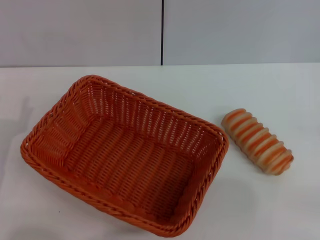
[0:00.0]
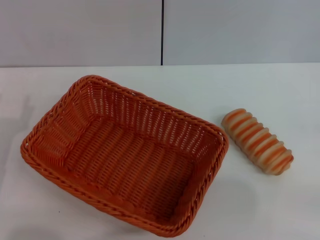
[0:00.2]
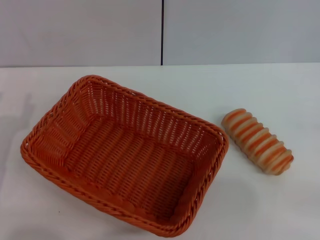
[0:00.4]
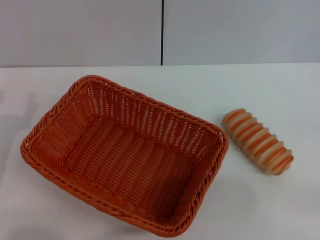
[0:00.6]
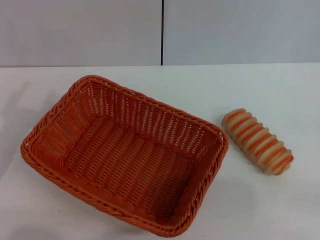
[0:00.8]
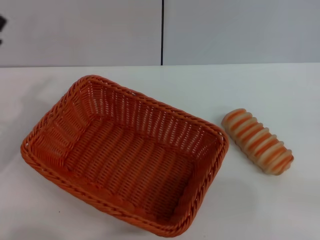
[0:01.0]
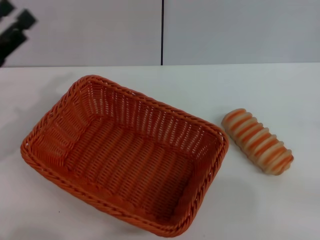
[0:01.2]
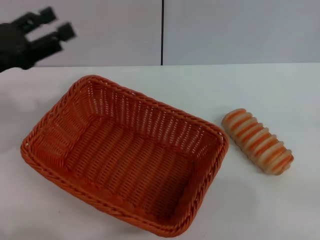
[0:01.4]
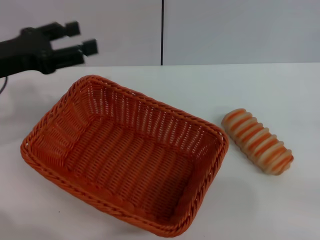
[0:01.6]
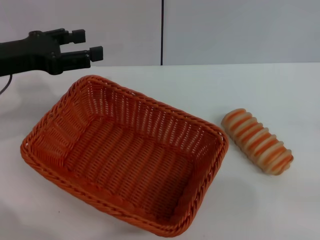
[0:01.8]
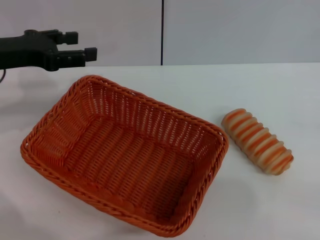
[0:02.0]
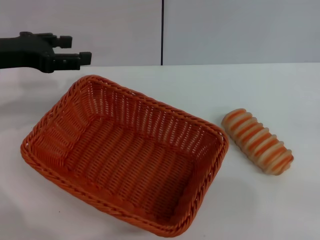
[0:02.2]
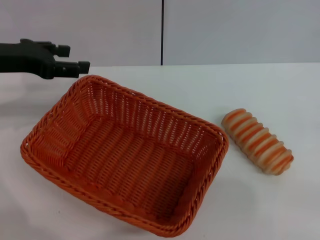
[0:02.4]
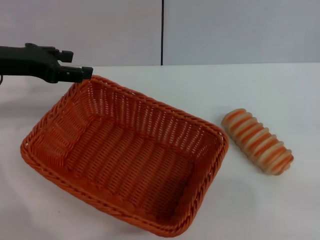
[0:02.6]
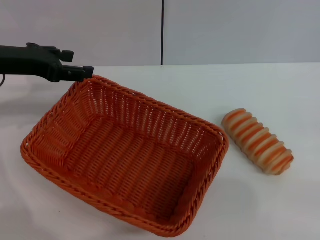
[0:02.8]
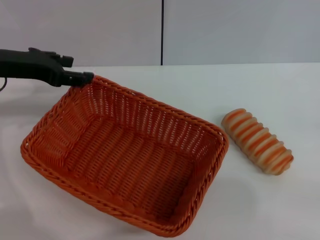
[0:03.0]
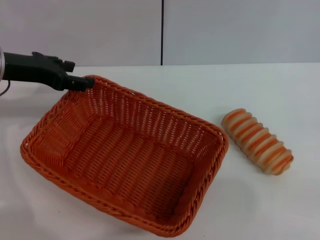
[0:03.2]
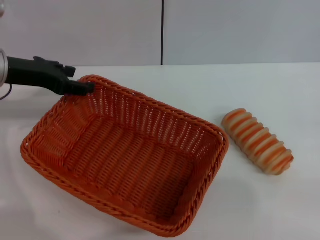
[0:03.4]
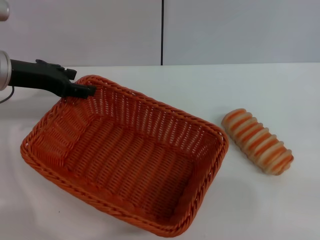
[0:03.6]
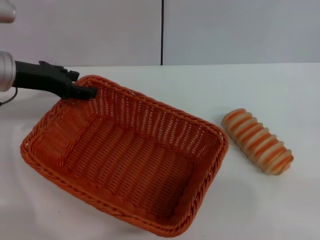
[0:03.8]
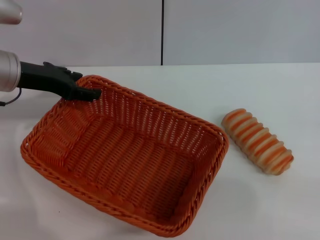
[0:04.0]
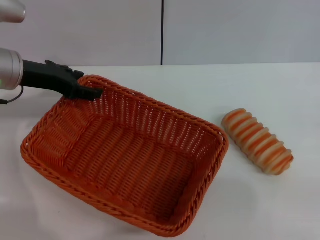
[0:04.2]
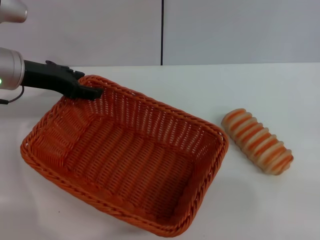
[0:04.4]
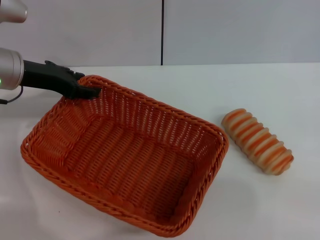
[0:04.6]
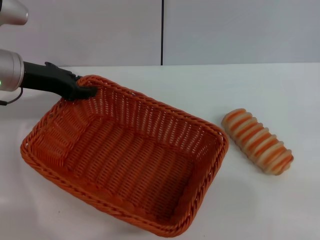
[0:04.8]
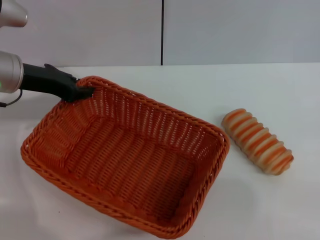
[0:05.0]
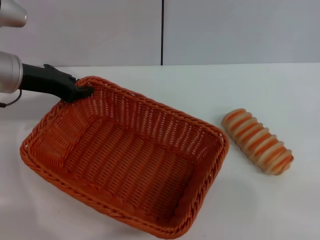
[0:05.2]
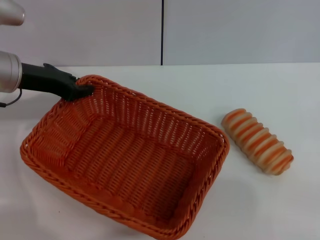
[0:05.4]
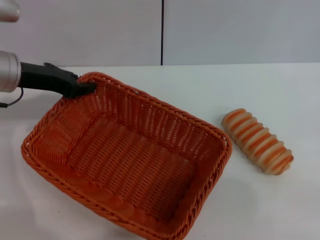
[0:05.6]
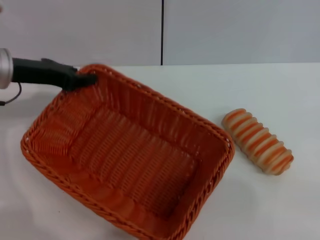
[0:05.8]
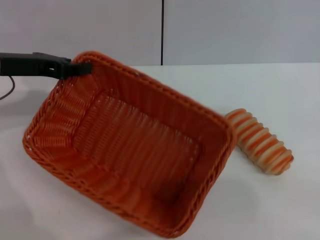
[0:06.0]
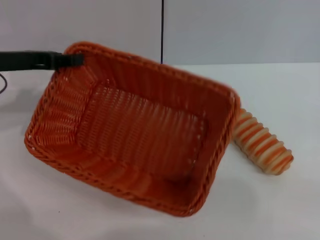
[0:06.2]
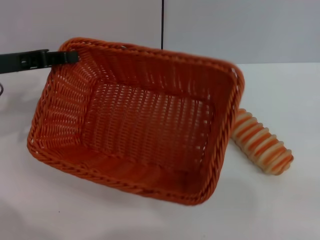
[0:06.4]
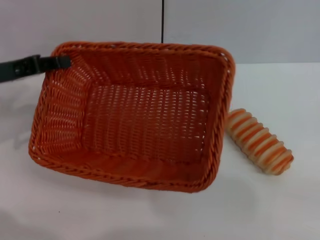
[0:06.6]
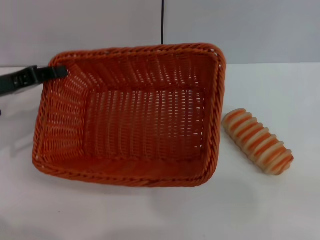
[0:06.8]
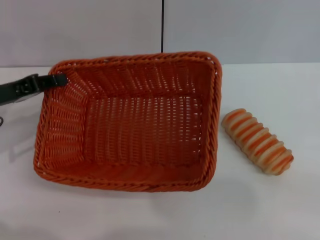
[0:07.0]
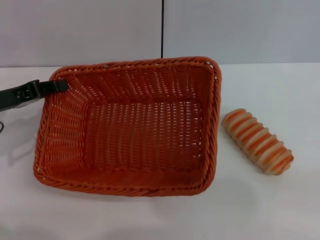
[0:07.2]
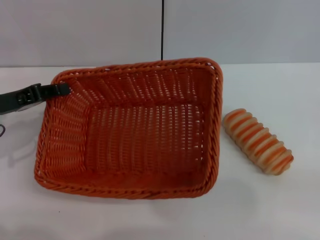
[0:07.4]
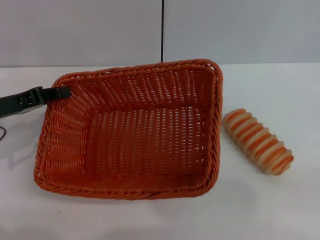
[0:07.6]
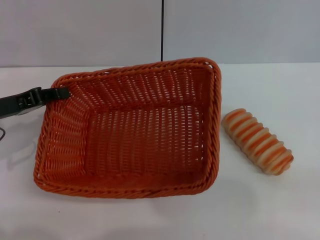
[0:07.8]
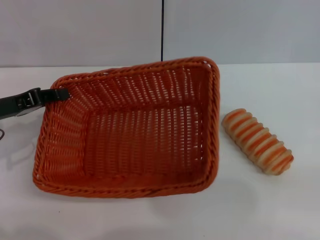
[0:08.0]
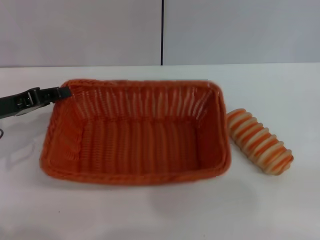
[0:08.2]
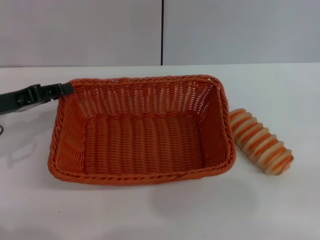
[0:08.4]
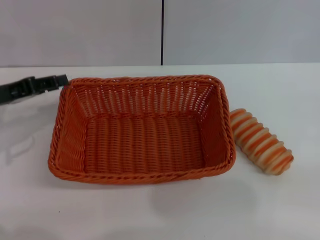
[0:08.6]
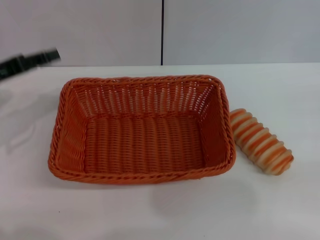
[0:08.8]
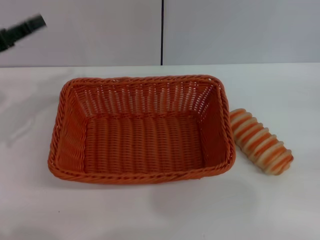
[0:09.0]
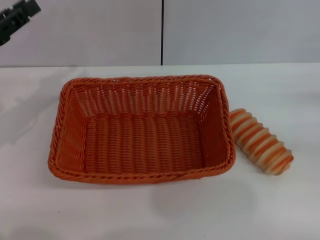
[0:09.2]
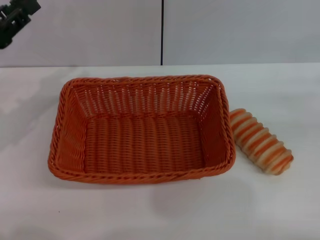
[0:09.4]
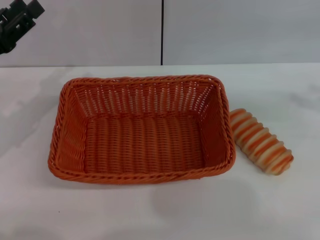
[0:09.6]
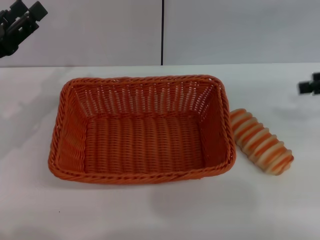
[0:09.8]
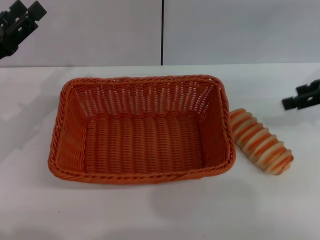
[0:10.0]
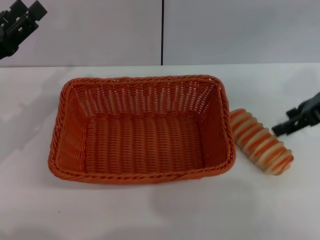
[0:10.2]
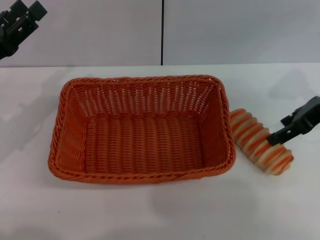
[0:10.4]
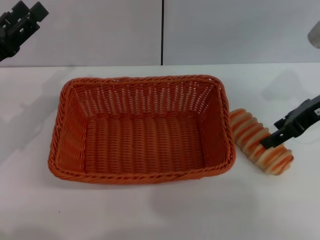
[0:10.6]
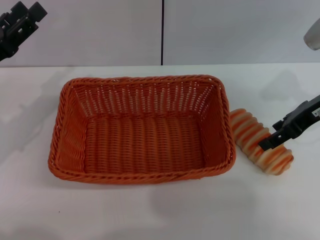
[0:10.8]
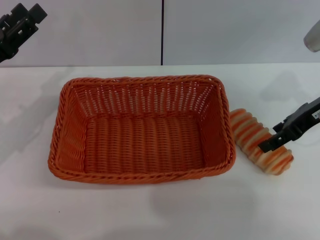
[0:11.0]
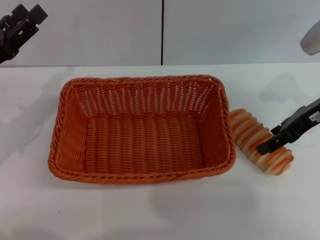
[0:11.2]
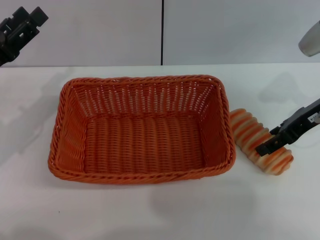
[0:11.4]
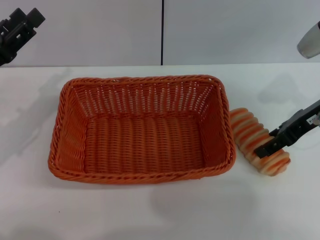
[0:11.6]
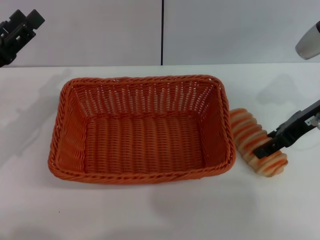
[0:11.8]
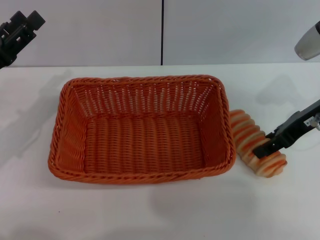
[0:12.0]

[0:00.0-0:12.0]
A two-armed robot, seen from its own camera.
Step, 0.0 to 6.2 s: Pick up the light basket with the left gripper.
Step, 6.4 to 8.8 s: Place the light basket in the center of view with the left gripper.
0.0 to 1.6 s: The left gripper is displaced forward and upward by roughly 15 cm.
3.0 to 4.4 s: The grippers stay close to where they were, moving slightly.
4.4 to 6.0 s: The left gripper closes.
6.0 to 7.6 s: The left gripper is displaced downward and backward by some 10 cm.
7.6 to 9.0 s: The left gripper shifts by approximately 5 cm, and opens its fingers.
9.0 to 10.4 s: The left gripper opens up, while the right gripper is displaced to the left, forward and upward by roughly 20 cm.
10.4 to 12.0 s: There are only small adjustments of the grippers.

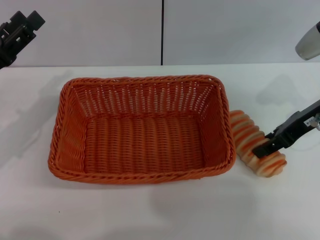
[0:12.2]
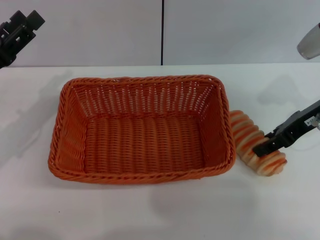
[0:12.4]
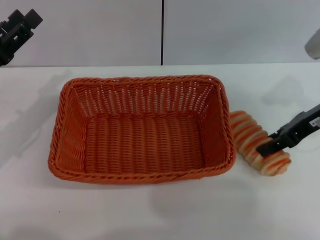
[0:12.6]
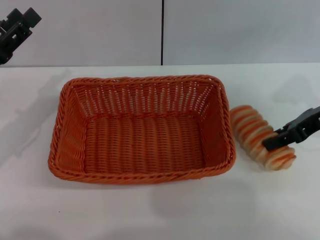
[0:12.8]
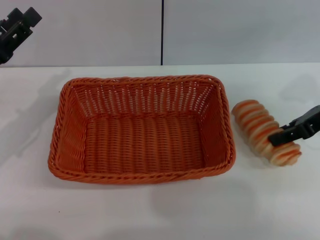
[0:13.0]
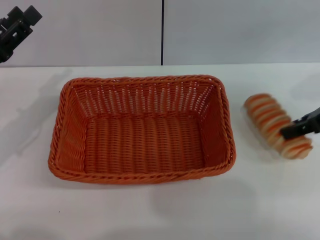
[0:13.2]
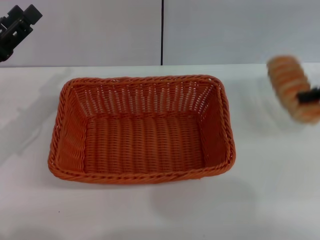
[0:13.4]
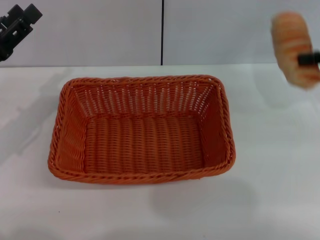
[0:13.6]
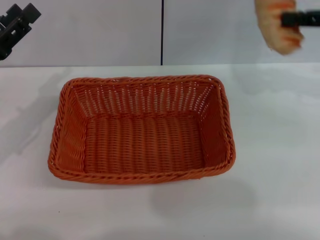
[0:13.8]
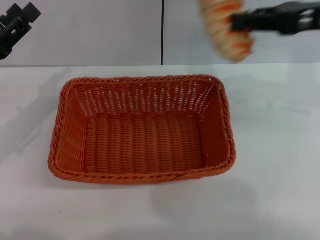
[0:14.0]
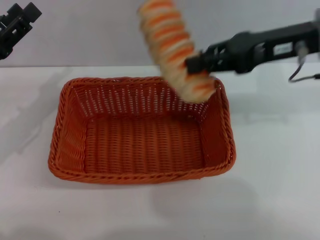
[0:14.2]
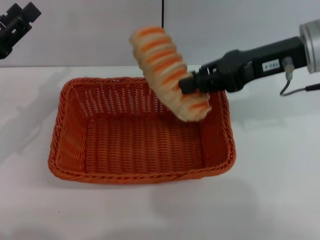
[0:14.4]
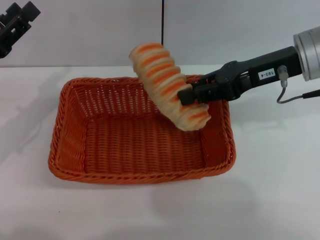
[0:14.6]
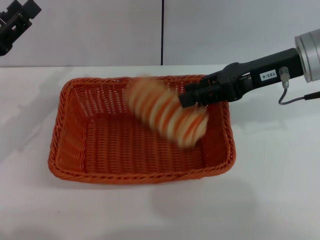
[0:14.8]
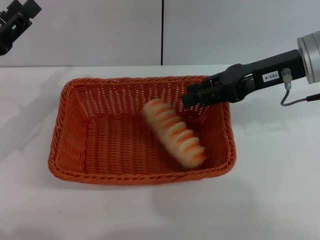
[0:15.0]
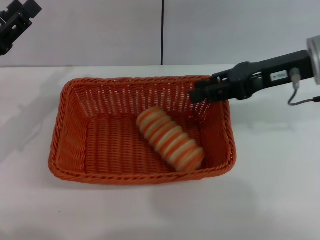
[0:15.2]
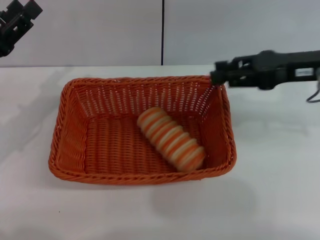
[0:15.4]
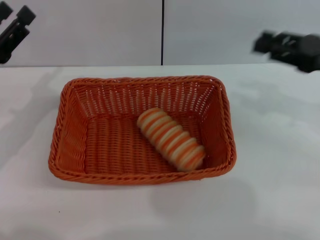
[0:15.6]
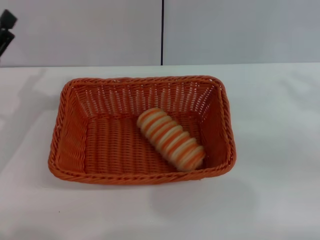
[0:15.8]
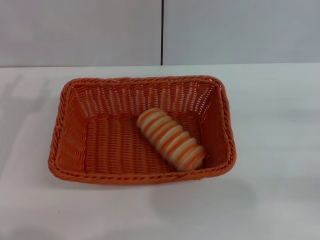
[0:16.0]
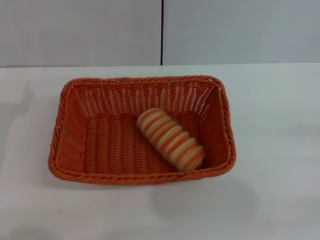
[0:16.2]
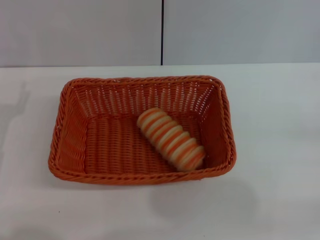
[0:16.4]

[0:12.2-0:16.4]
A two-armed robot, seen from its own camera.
Step, 13.6 to 15.0 s: Place the long bread into the light basket with the right gripper.
12.2 to 13.6 s: The right gripper travels to the right and upward by about 10 cm, and closes up.
13.6 to 15.0 s: The right gripper heads to the left, covering some 15 cm.
15.0 to 16.4 s: The right gripper is displaced to the right, backward and downward by roughly 30 cm. The left gripper shifts roughly 5 cm backward.

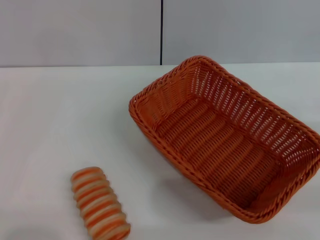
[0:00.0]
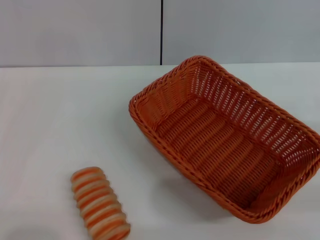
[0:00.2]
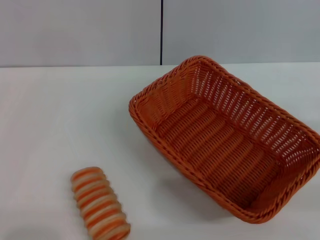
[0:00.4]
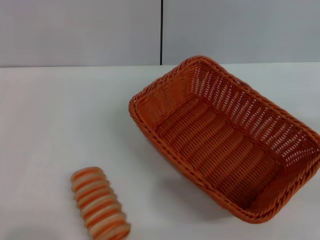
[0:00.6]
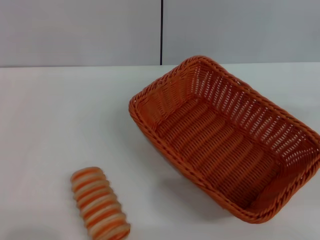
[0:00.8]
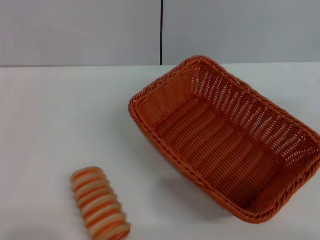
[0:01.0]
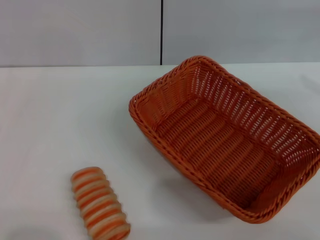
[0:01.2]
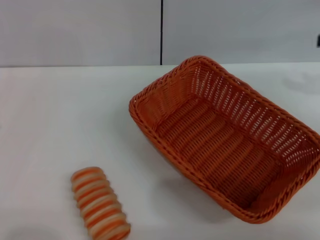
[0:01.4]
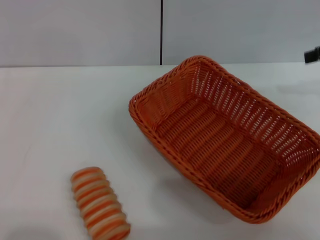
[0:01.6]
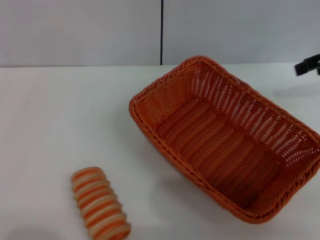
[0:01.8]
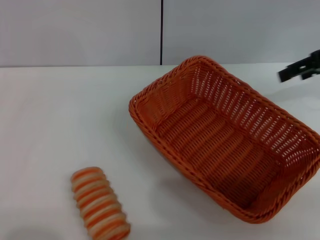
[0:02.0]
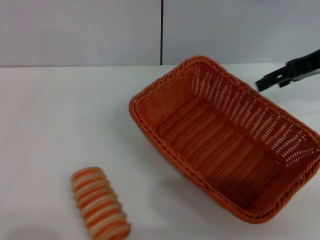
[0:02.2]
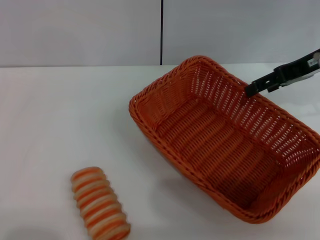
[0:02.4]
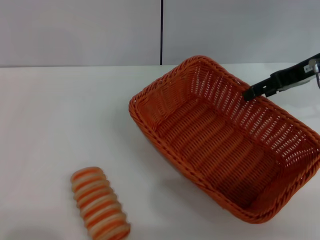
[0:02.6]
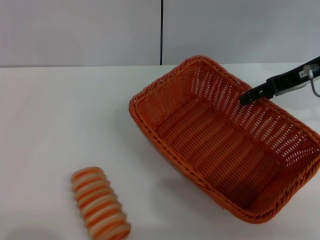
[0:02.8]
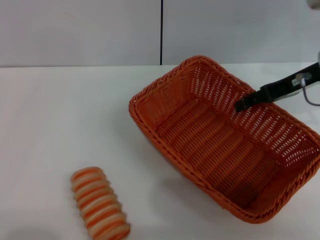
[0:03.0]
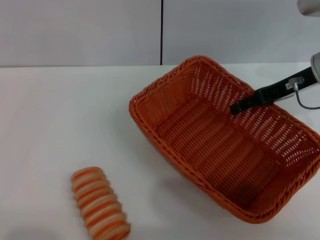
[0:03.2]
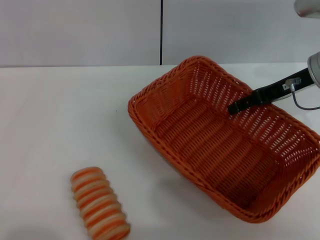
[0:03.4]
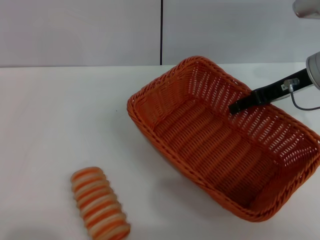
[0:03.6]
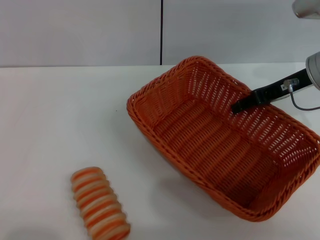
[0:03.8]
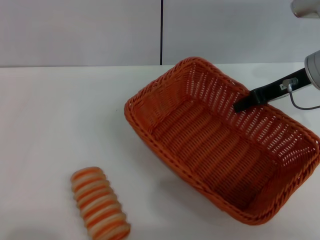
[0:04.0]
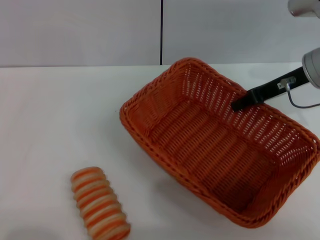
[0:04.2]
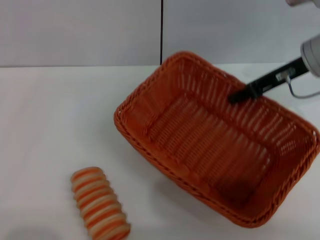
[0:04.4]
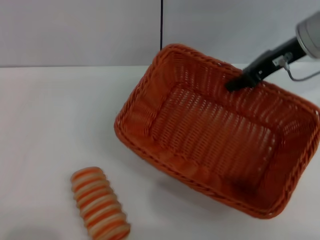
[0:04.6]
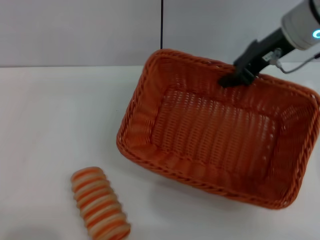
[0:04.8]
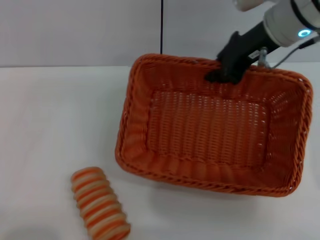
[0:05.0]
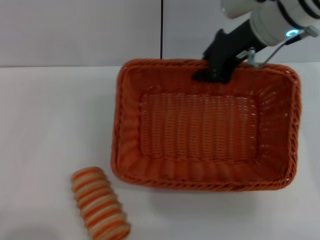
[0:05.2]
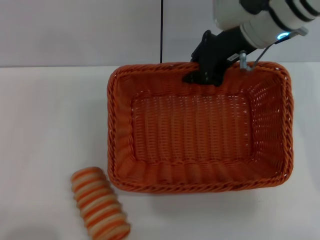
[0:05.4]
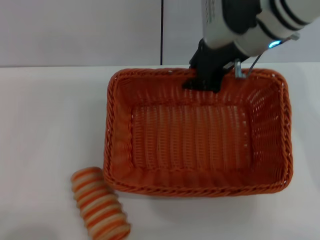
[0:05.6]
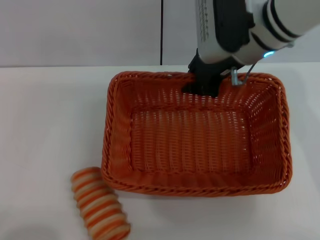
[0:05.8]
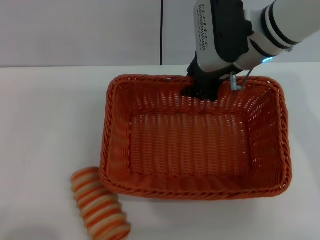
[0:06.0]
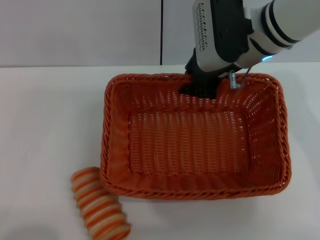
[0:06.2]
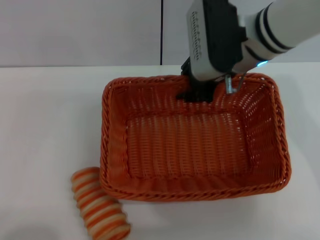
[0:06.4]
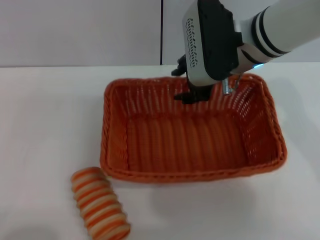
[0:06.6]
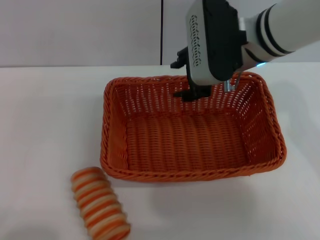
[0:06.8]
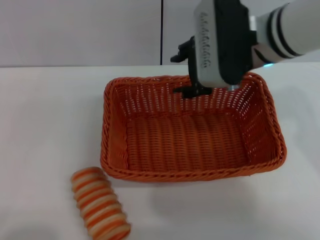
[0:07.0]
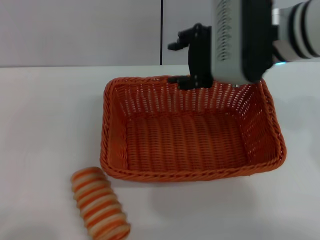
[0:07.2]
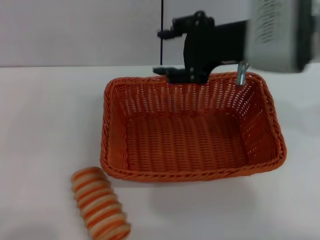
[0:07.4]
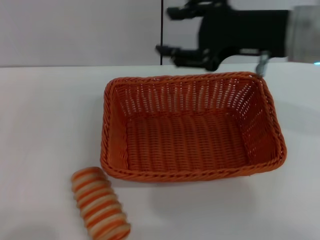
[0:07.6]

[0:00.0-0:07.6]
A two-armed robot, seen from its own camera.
Step, 0.0 to 4.4 s: Pick up the light basket with the right gripper.
Step, 4.6 to 7.0 s: Place the light basket in the center of view with the right gripper.
0.0 to 1.6 s: The right gripper moves forward and upward, some 20 cm.
1.6 to 3.0 s: The right gripper is displaced to the left and downward by some 10 cm.
3.0 to 4.6 s: The right gripper changes place by some 5 cm, and closes.
4.6 to 6.0 s: The left gripper moves backward, roughly 5 cm; the right gripper travels to the left by approximately 10 cm.
6.0 to 7.6 s: The right gripper shifts roughly 10 cm backward and to the right, and opens its fingers.
